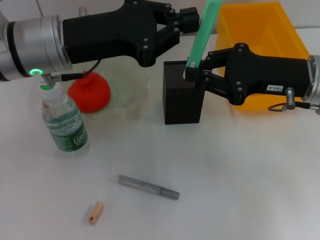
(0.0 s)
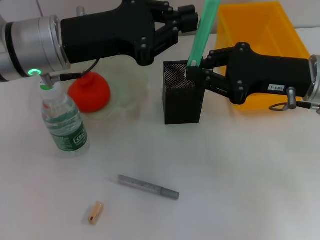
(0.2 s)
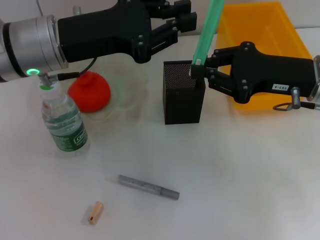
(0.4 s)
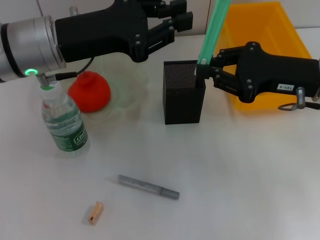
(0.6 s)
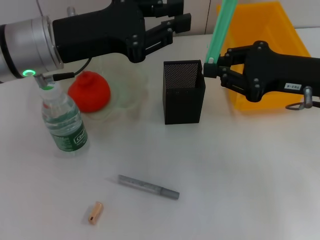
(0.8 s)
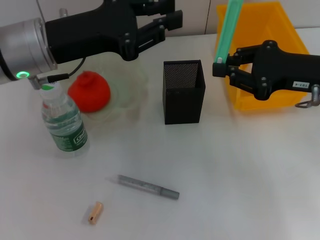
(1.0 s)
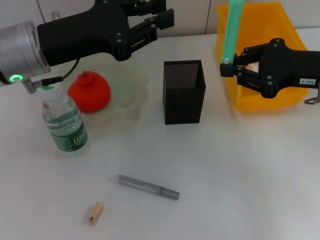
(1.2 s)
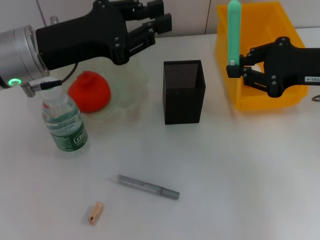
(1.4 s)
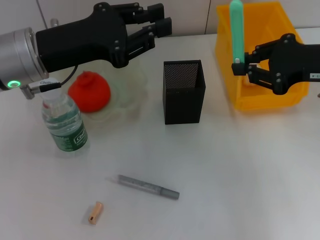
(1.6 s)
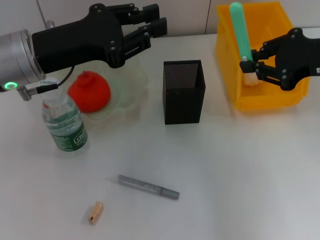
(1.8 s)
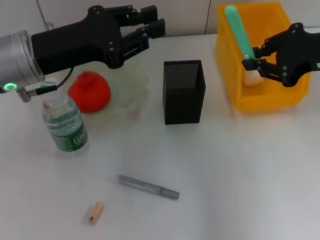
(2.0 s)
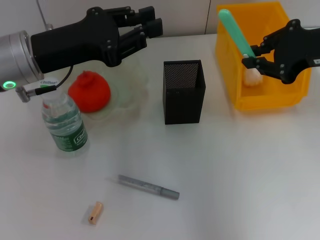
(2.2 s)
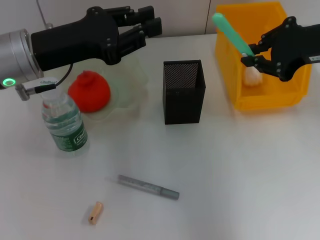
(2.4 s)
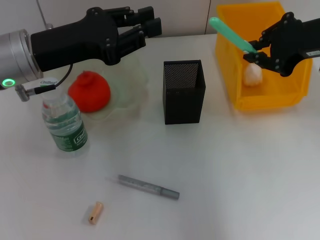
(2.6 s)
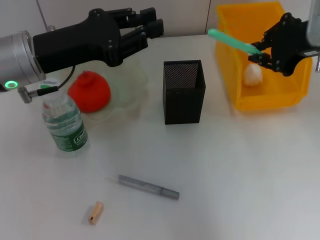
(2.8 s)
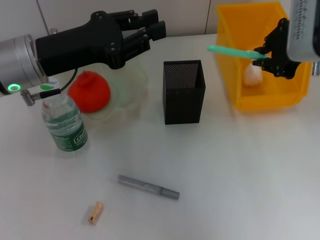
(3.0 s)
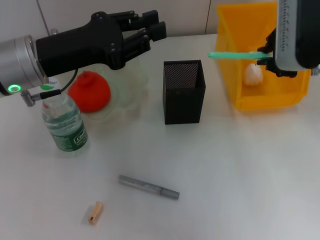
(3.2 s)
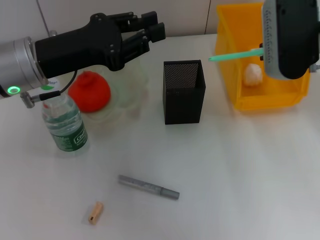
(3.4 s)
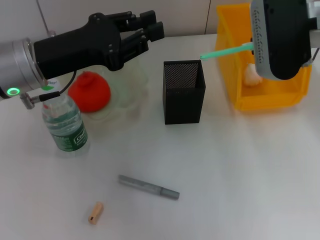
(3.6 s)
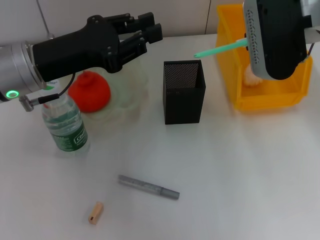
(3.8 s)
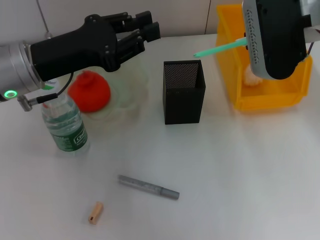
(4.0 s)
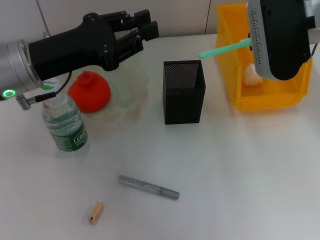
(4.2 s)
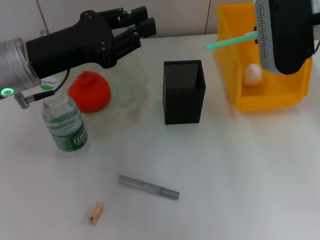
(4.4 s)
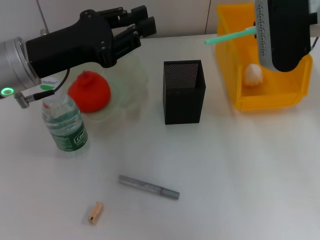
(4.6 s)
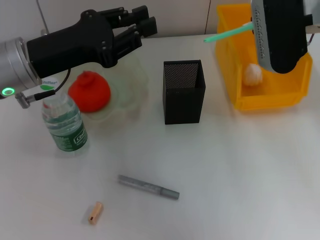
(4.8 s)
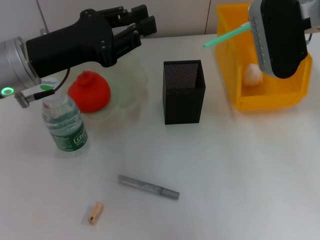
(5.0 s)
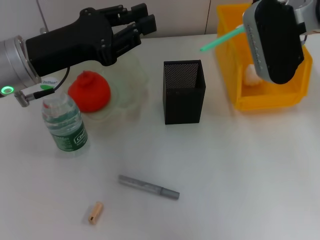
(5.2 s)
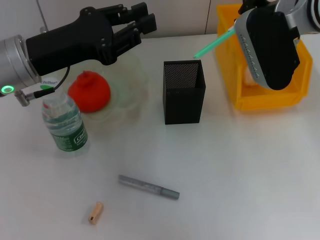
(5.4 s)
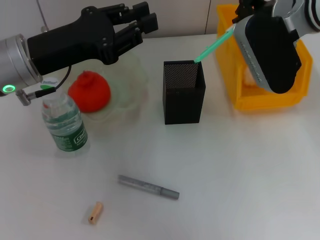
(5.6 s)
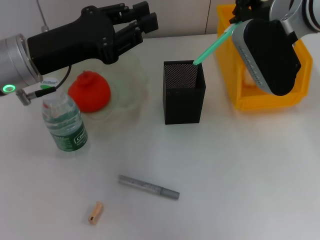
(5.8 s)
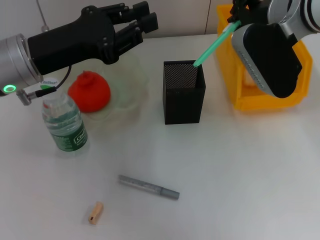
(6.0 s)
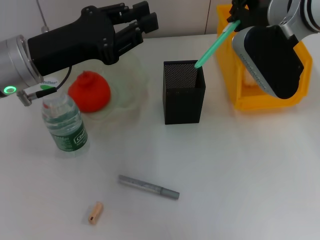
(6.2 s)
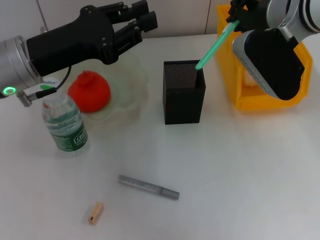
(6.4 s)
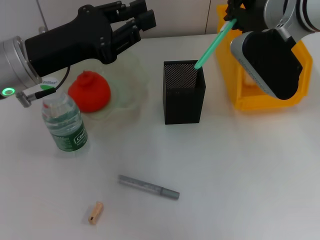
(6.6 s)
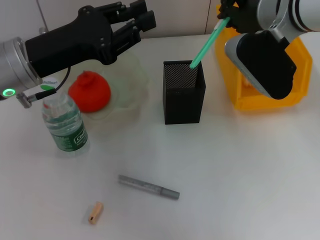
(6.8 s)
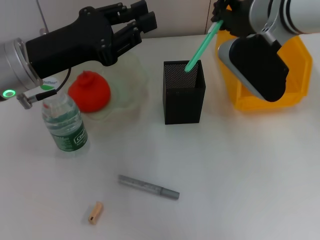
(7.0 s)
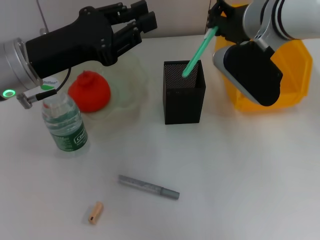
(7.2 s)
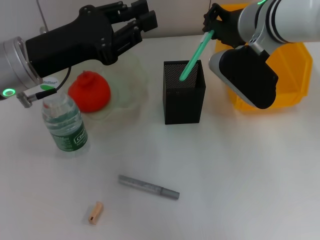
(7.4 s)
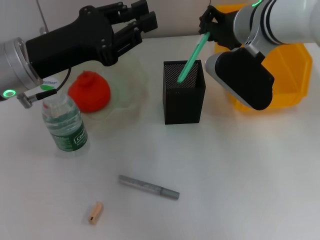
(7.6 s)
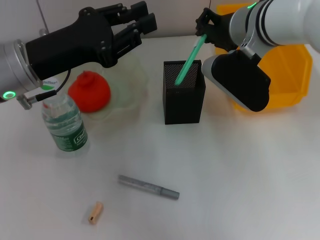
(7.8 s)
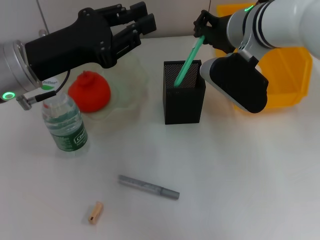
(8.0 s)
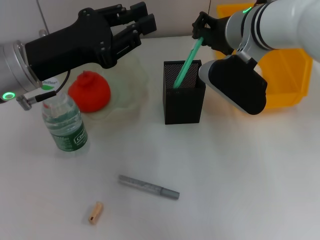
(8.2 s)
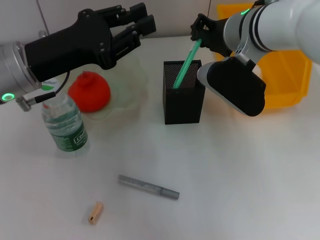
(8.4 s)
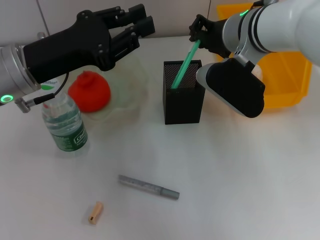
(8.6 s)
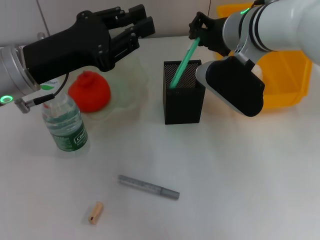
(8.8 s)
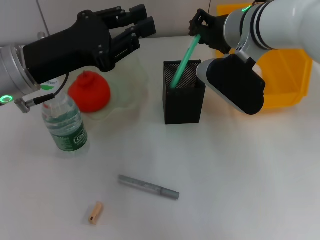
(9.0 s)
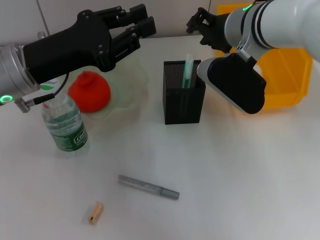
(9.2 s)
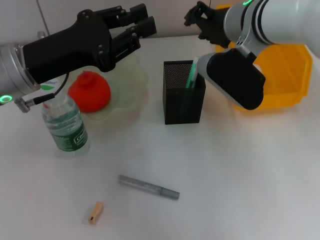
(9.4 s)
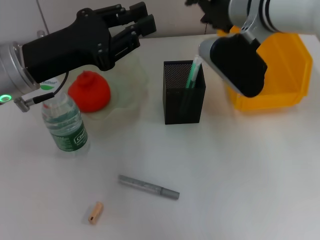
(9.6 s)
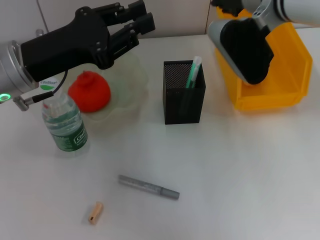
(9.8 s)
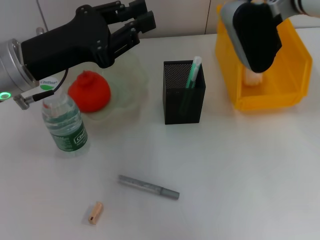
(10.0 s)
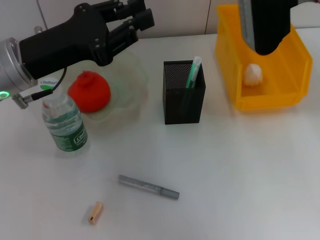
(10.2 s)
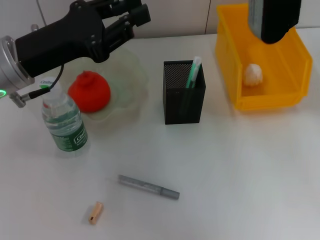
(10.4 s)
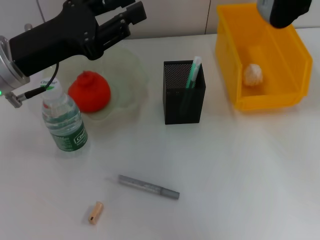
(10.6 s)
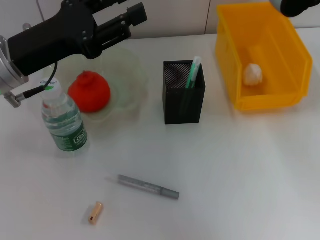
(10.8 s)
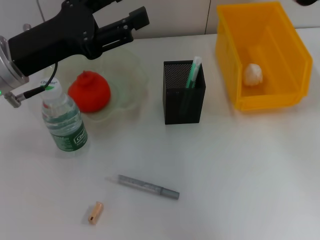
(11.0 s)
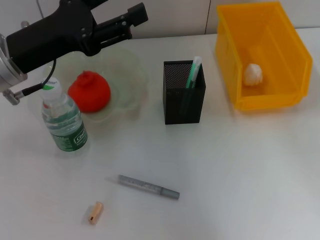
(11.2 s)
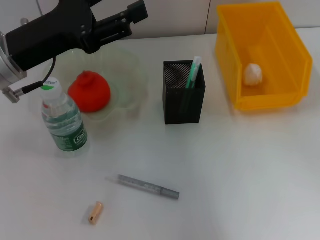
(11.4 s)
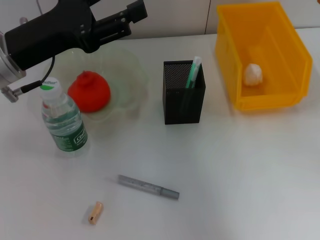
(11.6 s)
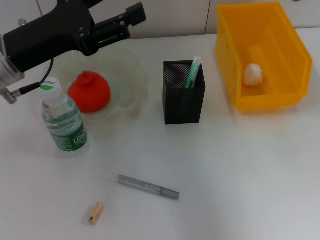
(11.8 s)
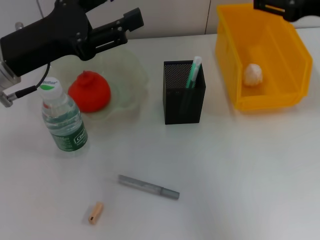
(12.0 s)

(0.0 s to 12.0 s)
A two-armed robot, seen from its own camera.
Step, 1.0 s - 9.2 s: Place the blue utility knife into the pen holder with the right hand.
0.0 s - 1.6 s: The right gripper moves roughly 5 cm.
1.6 s - 3.0 s: The right gripper ends up roughly 5 cm from where it was.
6.0 s - 9.0 s: The grippers make only small movements.
9.0 s - 10.4 s: The right gripper moves to the right and upward, roughly 10 cm, and opens.
10.4 s - 12.0 s: The left gripper opens. The right gripper travels backward and to the right by about 15 cm.

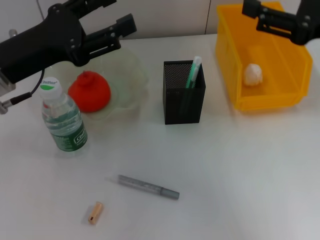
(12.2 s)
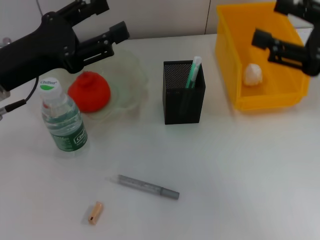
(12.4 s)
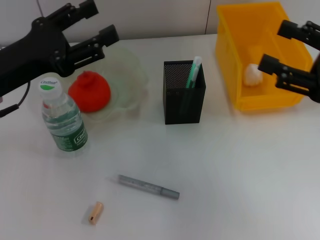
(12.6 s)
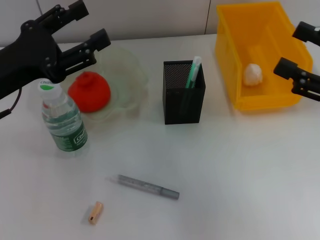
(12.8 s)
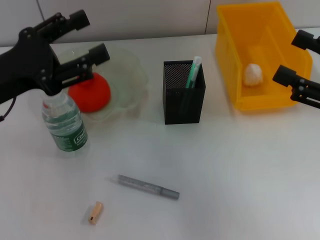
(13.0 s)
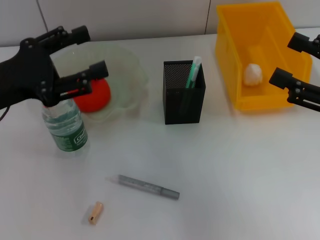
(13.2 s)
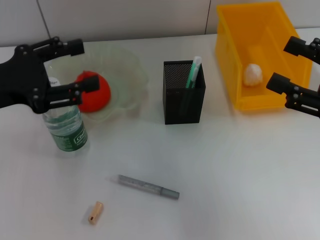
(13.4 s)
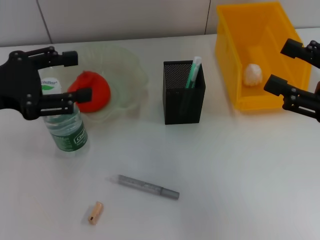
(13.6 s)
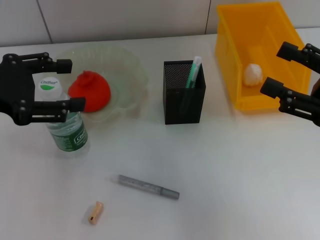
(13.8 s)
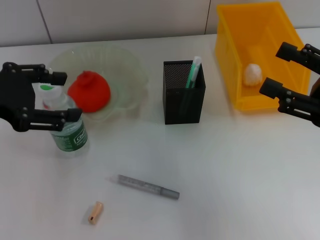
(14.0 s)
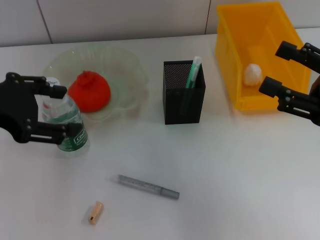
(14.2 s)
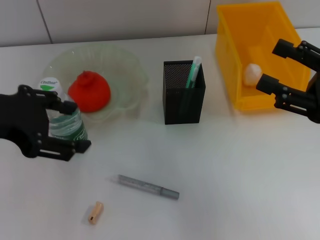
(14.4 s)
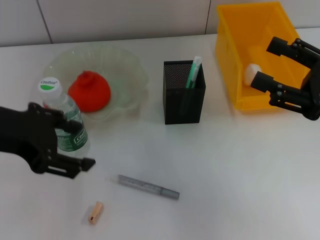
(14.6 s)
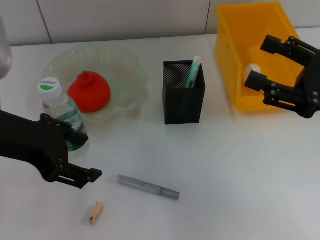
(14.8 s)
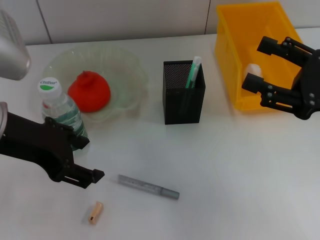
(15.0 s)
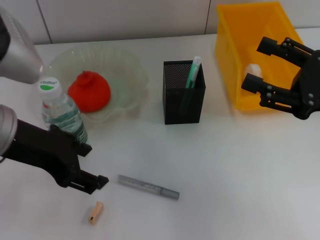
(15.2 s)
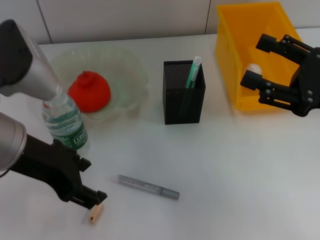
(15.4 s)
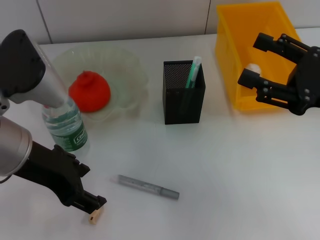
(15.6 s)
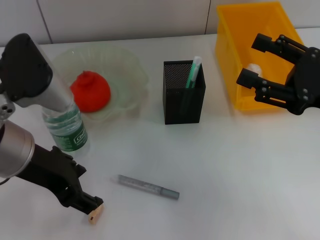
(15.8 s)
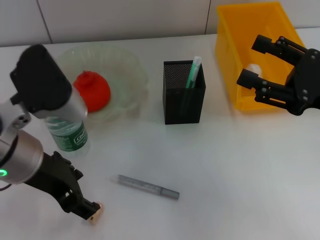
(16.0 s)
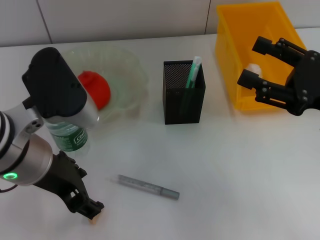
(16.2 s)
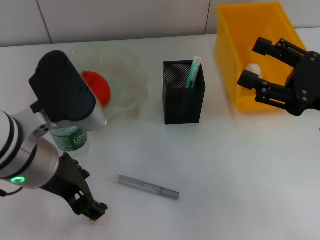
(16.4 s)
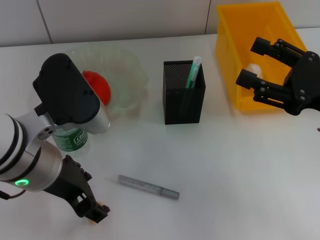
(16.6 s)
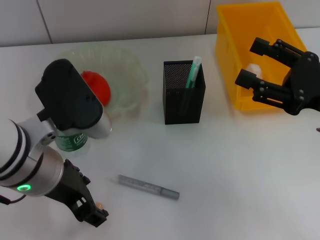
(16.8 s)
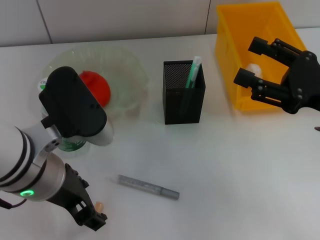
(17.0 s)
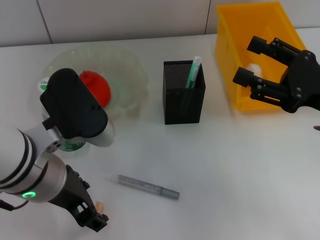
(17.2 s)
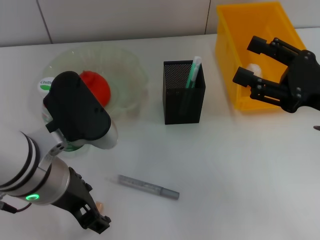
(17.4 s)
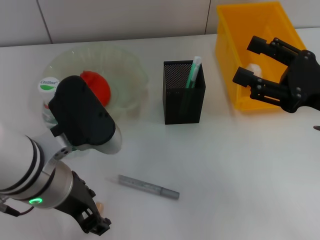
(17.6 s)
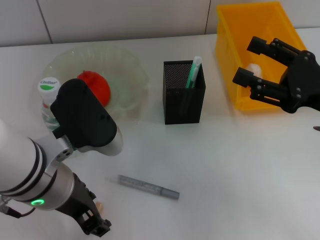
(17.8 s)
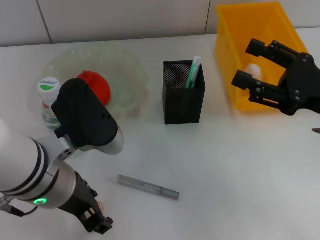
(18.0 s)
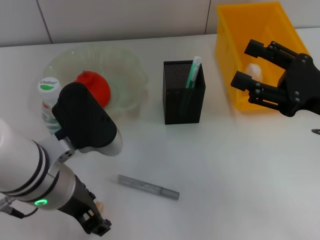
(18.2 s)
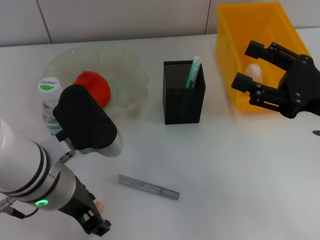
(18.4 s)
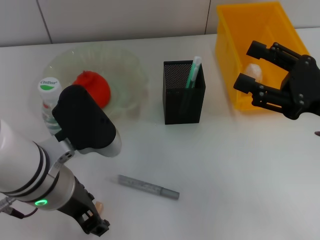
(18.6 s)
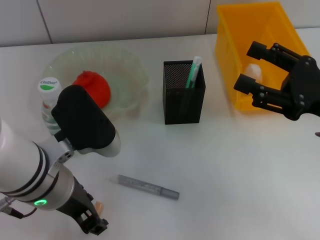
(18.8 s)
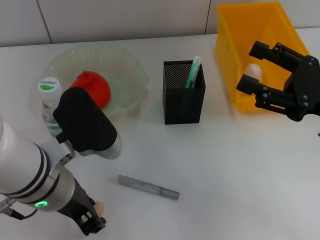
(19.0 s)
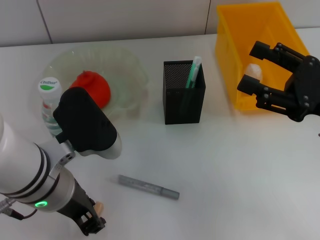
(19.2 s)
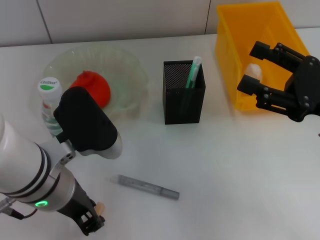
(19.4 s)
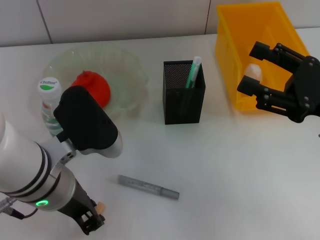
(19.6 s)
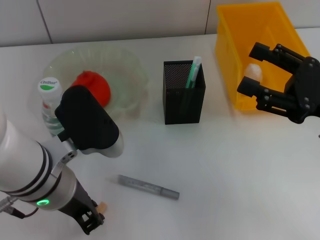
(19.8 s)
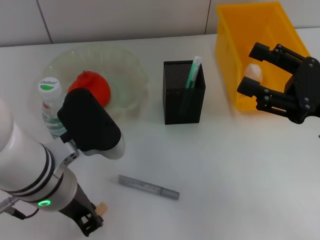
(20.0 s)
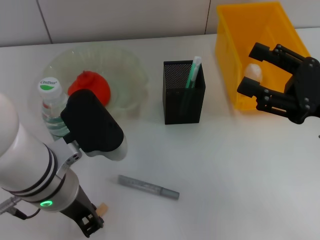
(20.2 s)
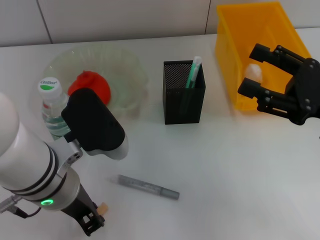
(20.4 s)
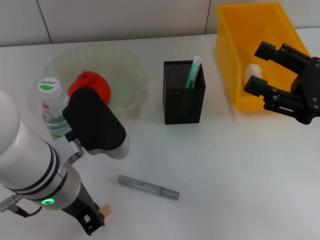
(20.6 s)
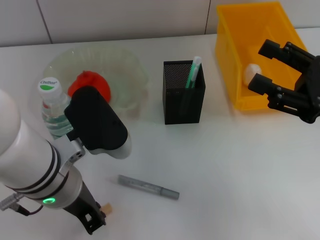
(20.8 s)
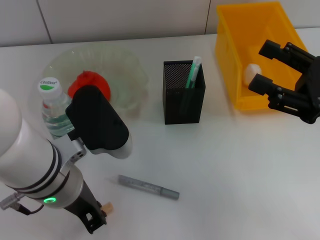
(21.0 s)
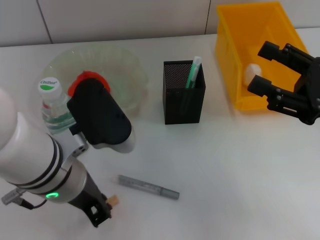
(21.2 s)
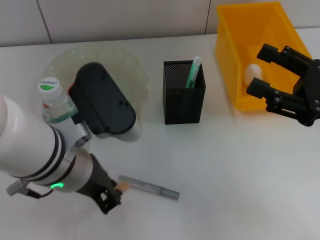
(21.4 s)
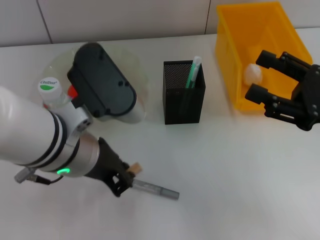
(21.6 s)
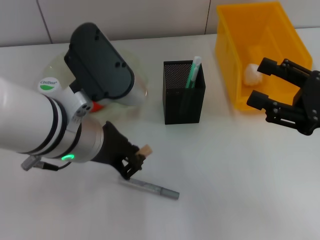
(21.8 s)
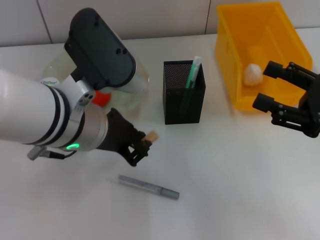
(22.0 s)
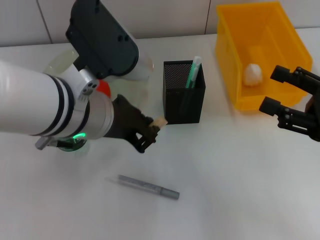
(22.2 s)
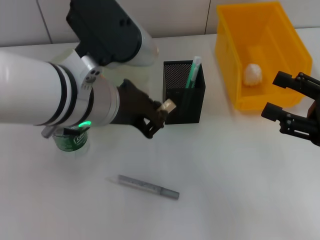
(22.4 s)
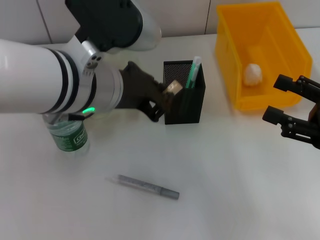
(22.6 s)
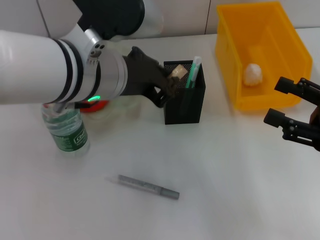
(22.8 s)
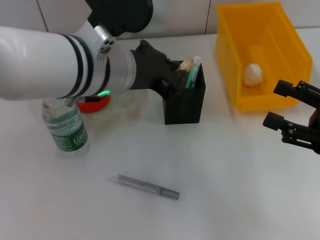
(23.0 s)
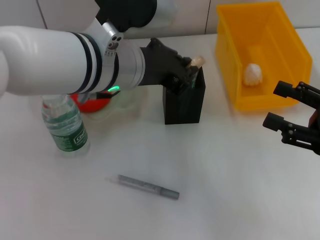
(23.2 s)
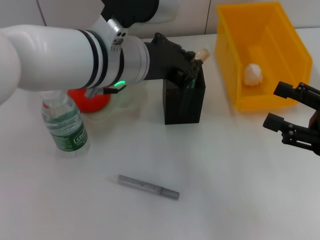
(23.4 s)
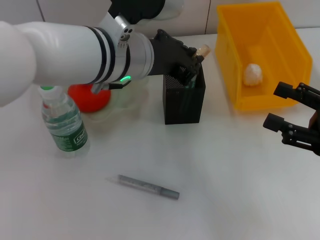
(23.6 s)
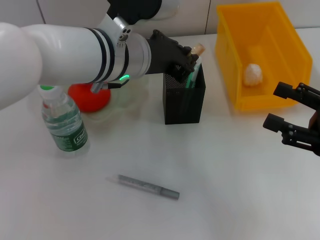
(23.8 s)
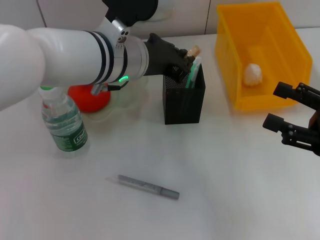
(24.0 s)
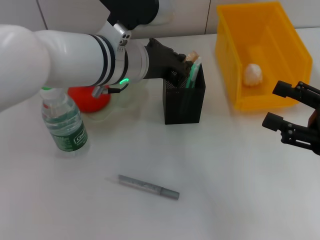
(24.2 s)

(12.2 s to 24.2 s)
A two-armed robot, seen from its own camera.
Step, 12.2 s - 20.2 s: Grab the eraser with the left hand.
12.2 s - 13.8 s: The left gripper travels to the left by approximately 5 cm. The right gripper travels downward by some 5 cm.
13.8 s - 15.2 s: The left gripper is displaced to the right by about 10 cm.
15.2 s - 16.6 s: The left gripper shifts by roughly 5 cm.
16.6 s - 18.2 s: There are only small adjustments of the grippers.
18.2 s - 19.8 s: The left gripper closes its fingers.
19.8 s - 21.2 s: There are only small adjustments of the grippers.
21.2 s - 22.6 s: The left gripper moves upward, about 5 cm.
22.6 s - 24.2 s: The left gripper travels forward by roughly 5 cm.
